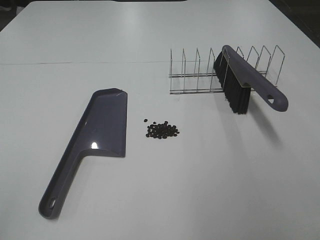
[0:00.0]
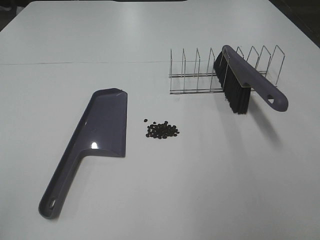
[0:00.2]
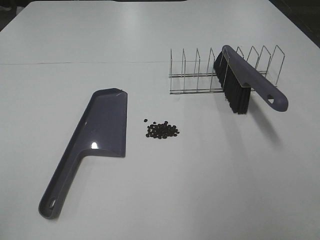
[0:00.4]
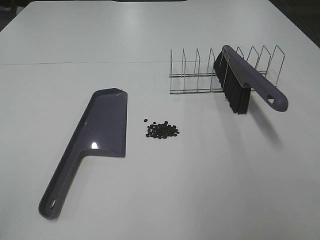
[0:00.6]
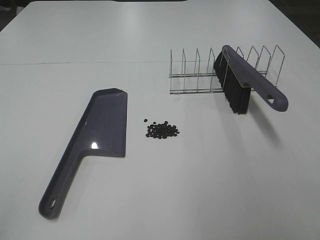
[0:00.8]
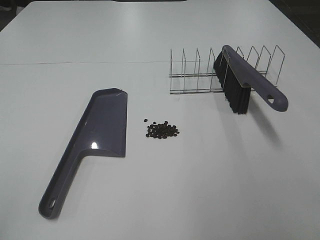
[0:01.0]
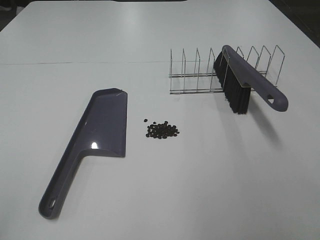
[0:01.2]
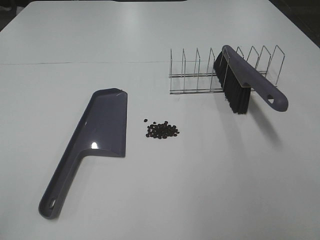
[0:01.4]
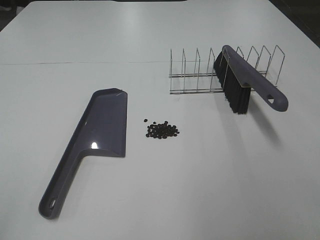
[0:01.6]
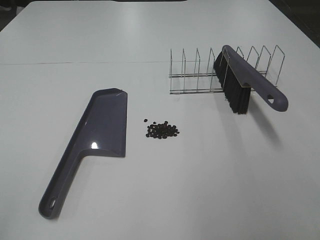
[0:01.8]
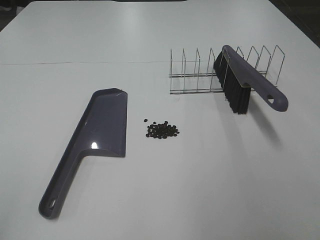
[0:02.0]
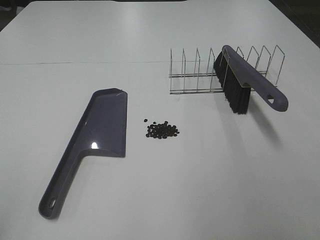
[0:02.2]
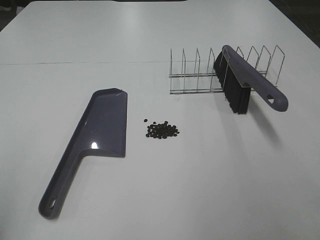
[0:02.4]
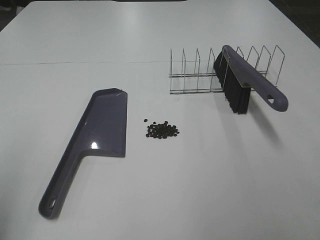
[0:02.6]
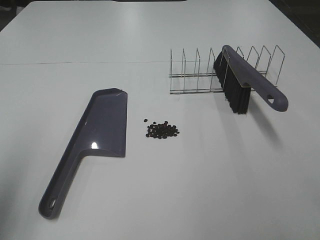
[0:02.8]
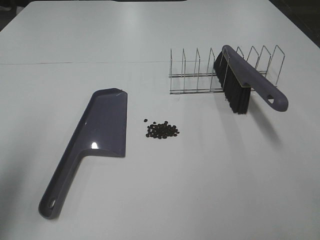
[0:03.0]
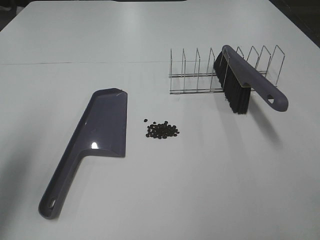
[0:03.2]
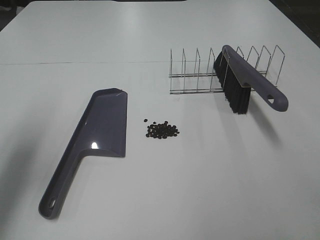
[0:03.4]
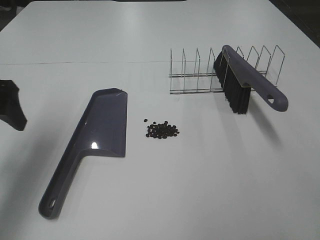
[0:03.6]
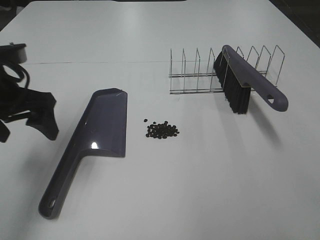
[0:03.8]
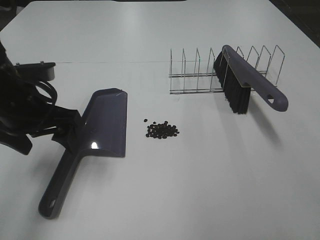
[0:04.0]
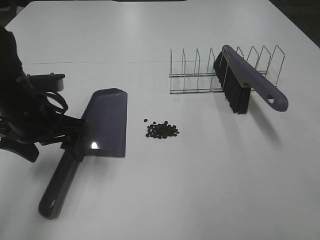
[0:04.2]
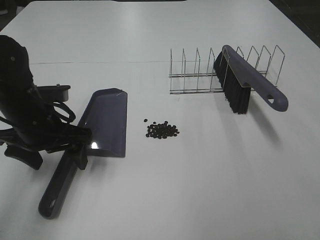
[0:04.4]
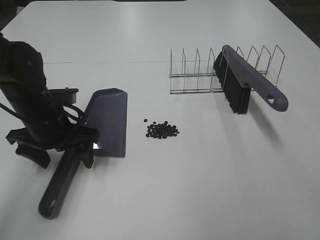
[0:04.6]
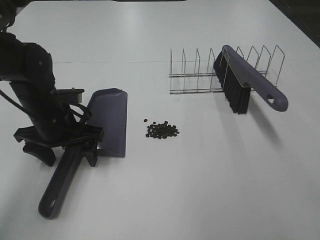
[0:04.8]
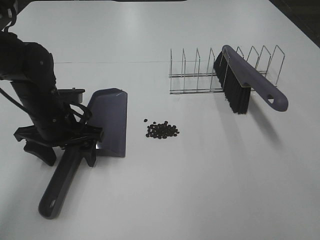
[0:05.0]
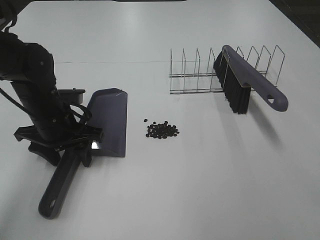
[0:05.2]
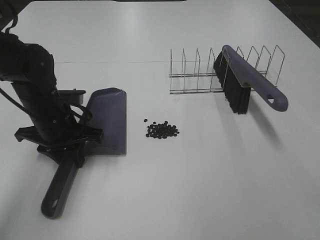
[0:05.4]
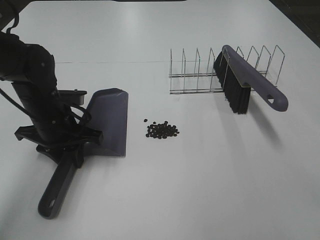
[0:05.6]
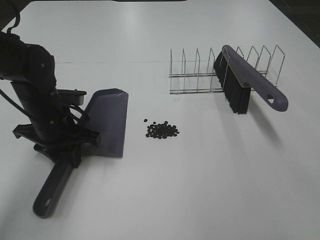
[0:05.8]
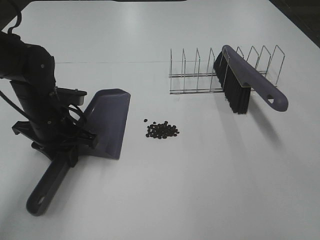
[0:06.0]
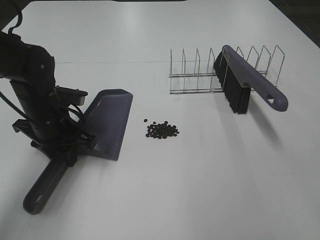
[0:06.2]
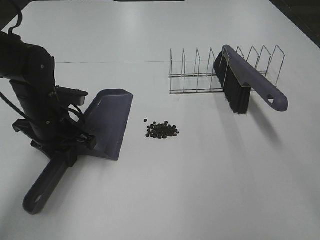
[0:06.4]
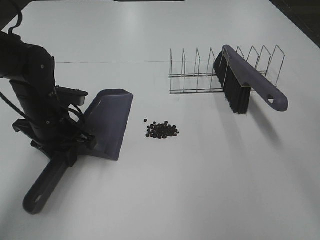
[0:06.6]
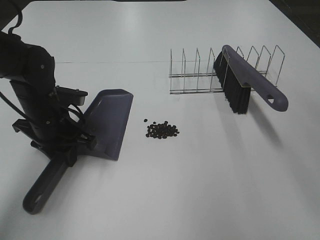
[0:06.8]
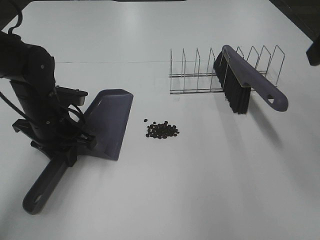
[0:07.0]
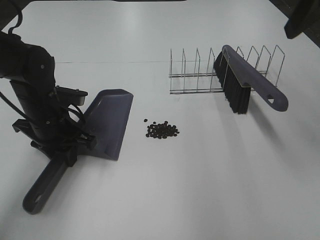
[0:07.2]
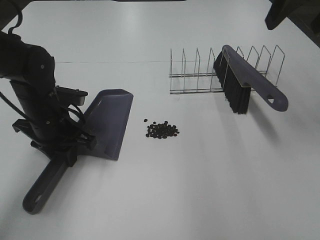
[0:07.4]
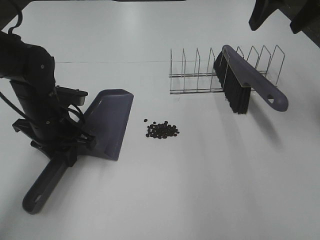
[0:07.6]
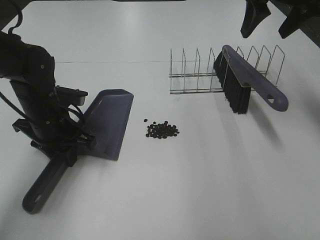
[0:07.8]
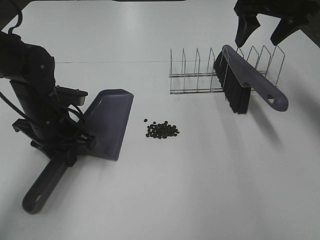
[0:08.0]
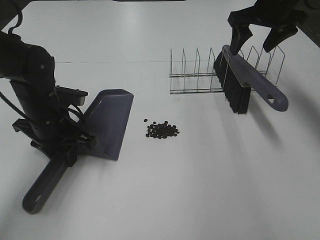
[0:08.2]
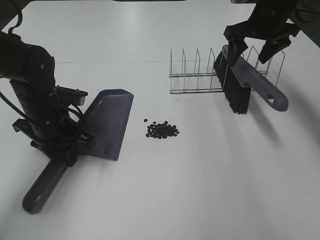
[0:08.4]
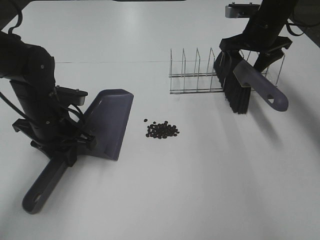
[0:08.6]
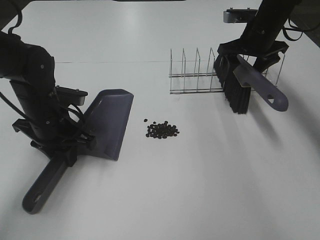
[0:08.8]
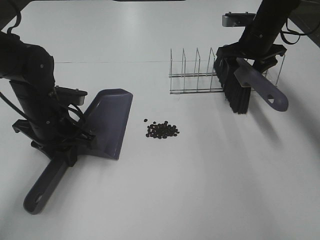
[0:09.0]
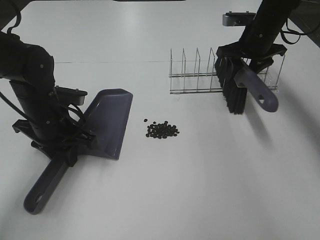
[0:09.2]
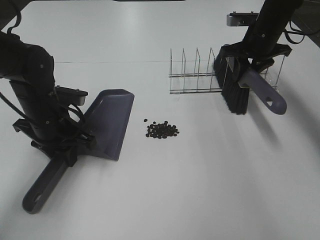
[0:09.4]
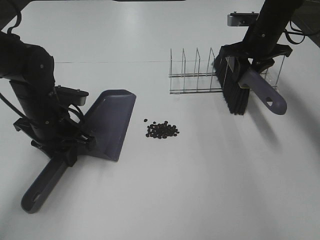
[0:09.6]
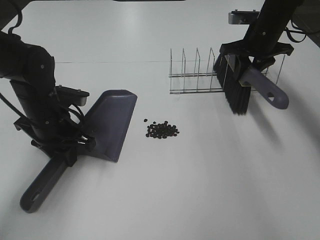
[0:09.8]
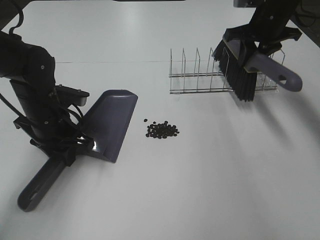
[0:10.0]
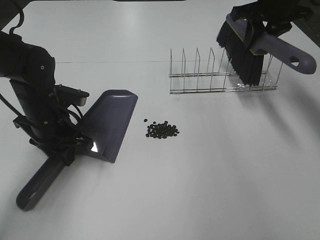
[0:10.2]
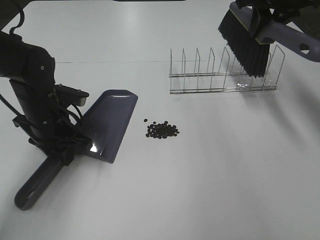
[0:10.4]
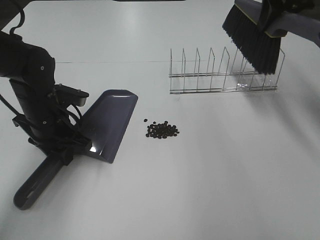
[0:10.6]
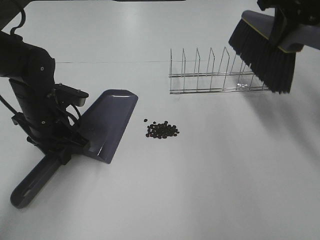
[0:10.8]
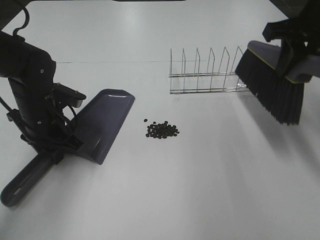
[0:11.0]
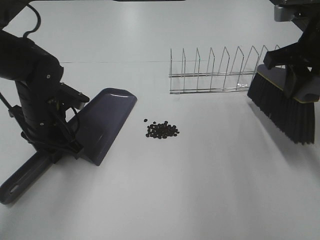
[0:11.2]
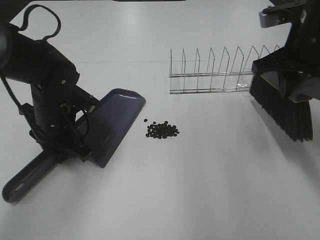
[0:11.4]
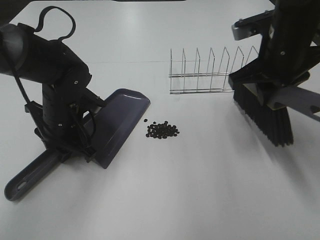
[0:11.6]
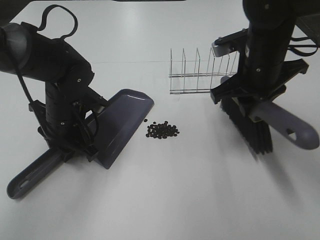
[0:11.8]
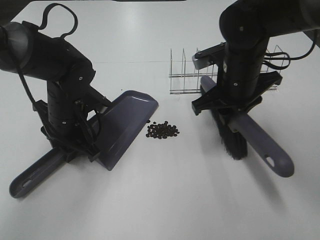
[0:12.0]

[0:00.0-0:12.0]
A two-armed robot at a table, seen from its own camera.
Task of the whole recording: Sweep Coffee Bean.
Step, 0:00.0 to 0:05.4: Left hand: grab the dustpan.
Step, 0:05.6 to 0:09.4: Right hand:grab the broom.
0:00.0 to 0:01.6: Both grippers stay put.
0:01.6 to 0:03.0: The left gripper moves forward, roughly 20 cm.
0:03.0 to 0:04.4: The left gripper travels downward, to the right and forward by some 20 cm.
0:04.4 to 0:06.0: The left gripper closes up.
0:06.0 to 0:07.6: The right gripper is displaced forward by approximately 40 cm.
0:07.6 to 0:09.0: The right gripper is displaced downward and forward by roughly 20 cm.
0:09.0 to 0:10.4: The right gripper is displaced upward by about 10 cm, and closes.
0:10.4 to 0:12.0: The right gripper goes some 20 cm downward, backward and to the left.

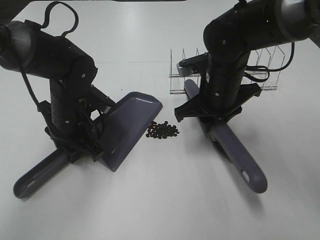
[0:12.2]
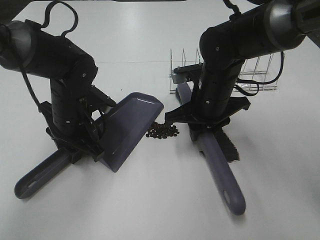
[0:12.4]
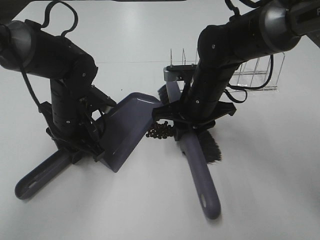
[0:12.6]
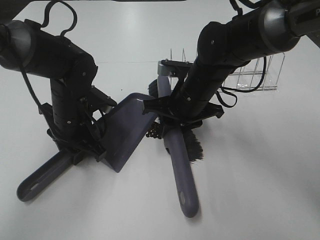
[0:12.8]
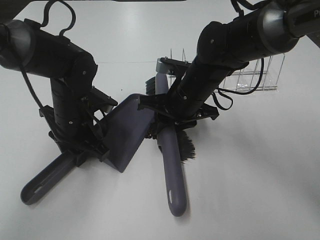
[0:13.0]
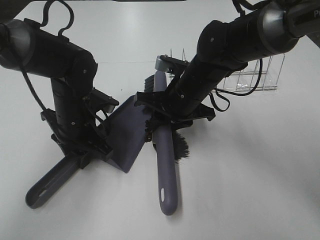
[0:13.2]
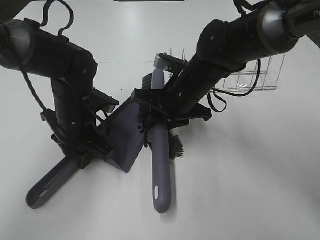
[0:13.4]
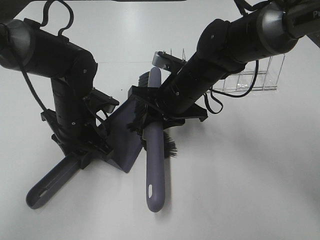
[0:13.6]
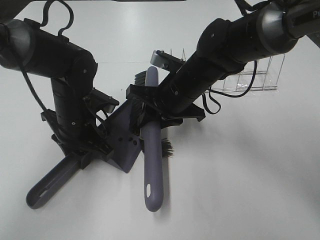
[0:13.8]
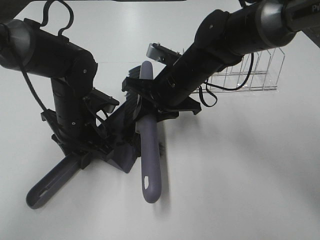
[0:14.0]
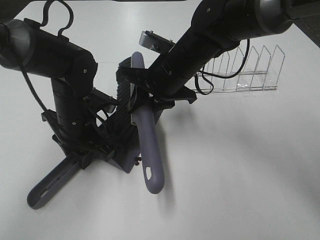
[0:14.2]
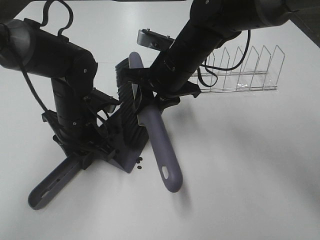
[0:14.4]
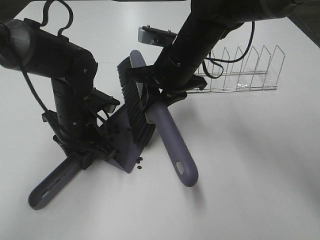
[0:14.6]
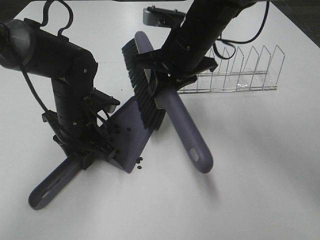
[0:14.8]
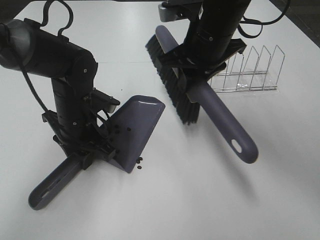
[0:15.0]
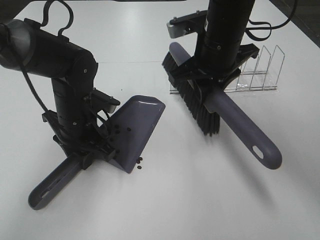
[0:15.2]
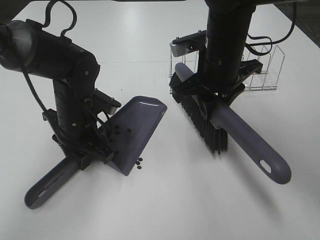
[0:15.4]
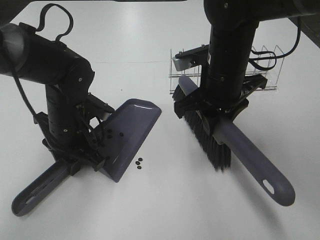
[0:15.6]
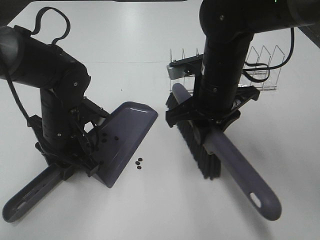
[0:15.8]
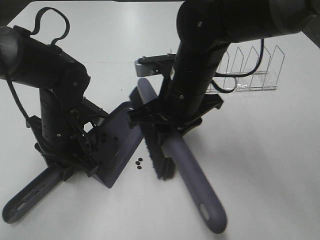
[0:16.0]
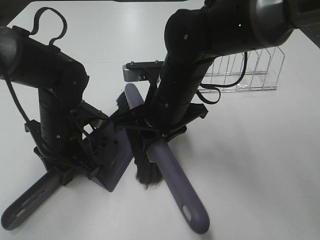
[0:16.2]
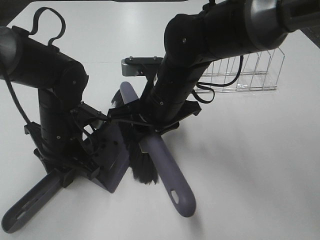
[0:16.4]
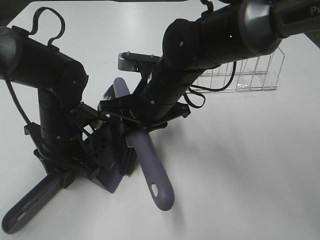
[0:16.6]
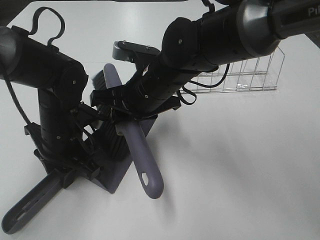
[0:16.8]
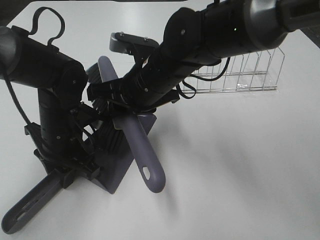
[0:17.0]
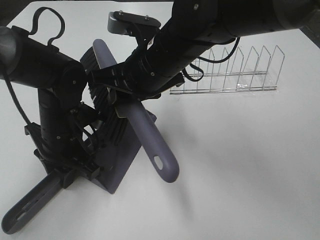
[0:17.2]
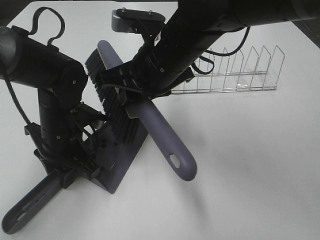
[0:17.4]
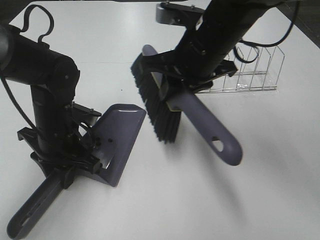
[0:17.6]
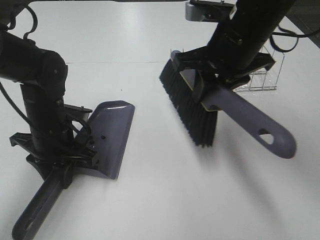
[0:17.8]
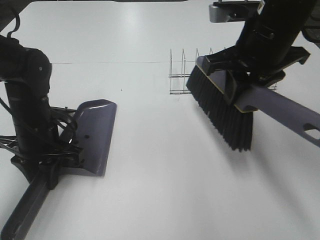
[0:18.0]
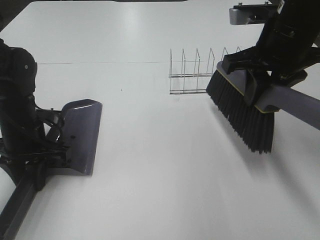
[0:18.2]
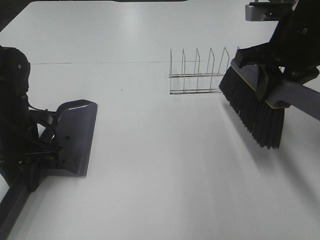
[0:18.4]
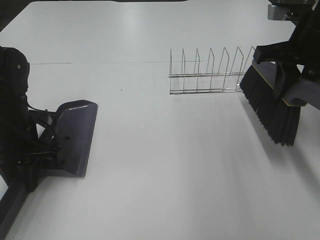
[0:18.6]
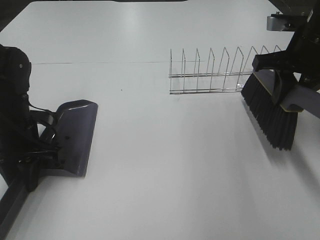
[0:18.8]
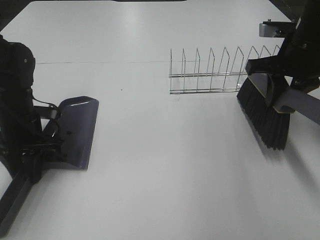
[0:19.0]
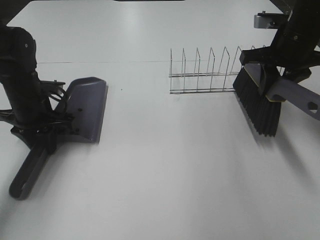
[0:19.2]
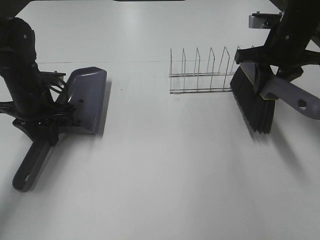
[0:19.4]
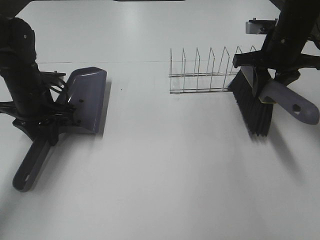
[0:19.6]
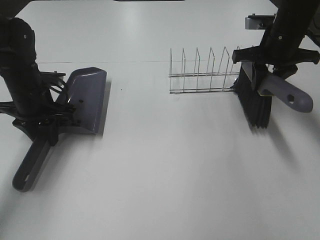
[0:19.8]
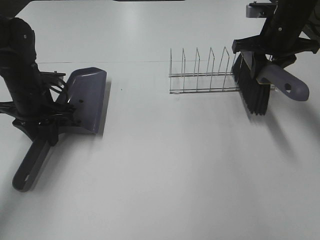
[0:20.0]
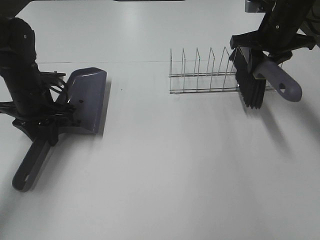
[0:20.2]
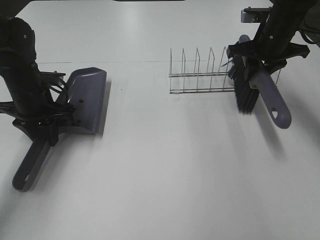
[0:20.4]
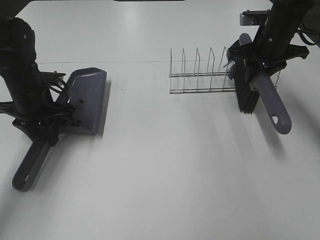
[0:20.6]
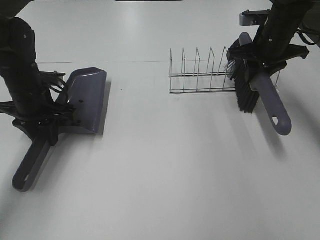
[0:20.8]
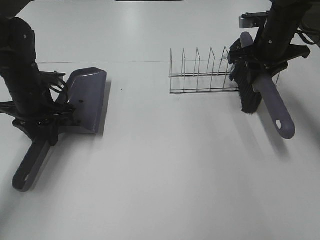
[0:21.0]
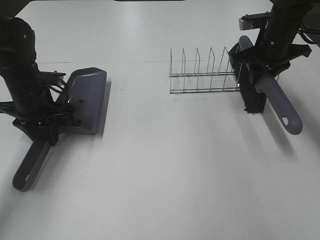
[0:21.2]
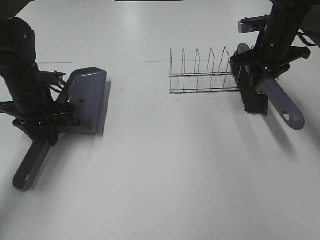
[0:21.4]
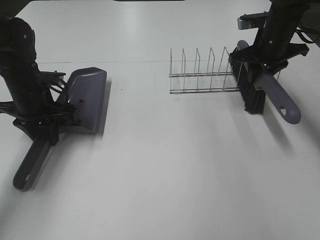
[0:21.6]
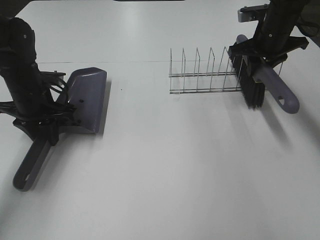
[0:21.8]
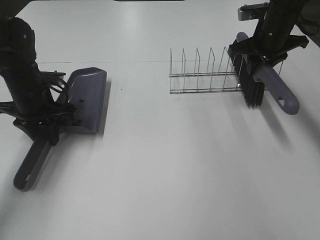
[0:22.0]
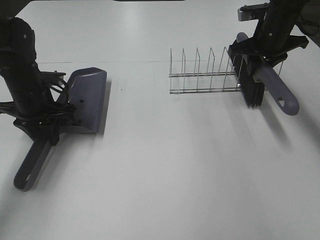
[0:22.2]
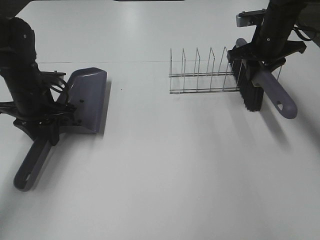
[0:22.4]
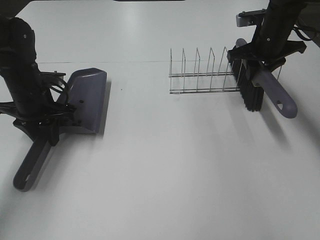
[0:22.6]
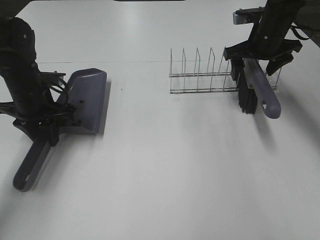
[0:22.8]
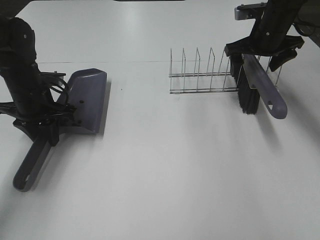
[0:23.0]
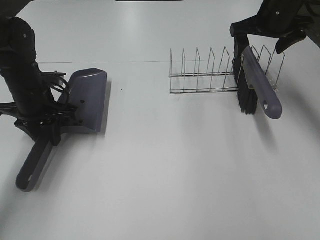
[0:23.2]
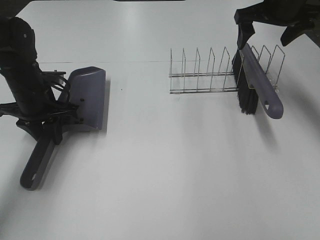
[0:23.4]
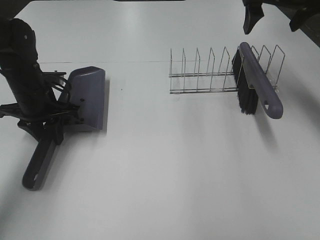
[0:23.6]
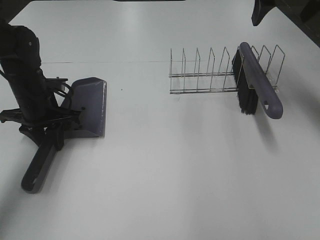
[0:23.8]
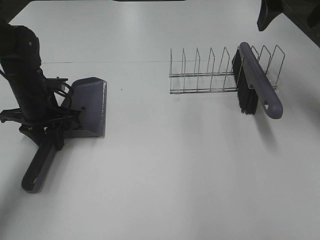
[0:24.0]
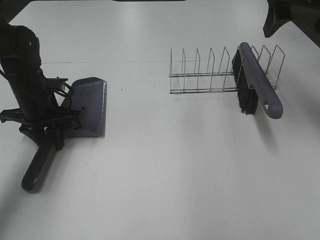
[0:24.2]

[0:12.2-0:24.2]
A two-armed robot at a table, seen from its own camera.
Task of the whole recording: Sweep Coffee Bean.
Step, 0:12.2 to 0:17.4: Right hand:sweep the coffee beans into the dustpan.
Step, 0:17.6 to 0:22.8: Right hand:place the broom on the rack.
0:12.2 to 0:13.8: The right gripper goes roughly 5 cm to the left.
0:13.8 to 0:15.2: The right gripper heads upward, covering about 10 cm.
0:15.2 to 0:16.6: The right gripper goes approximately 10 cm to the left and downward.
0:16.6 to 0:18.2: The left gripper is displaced to the left by roughly 10 cm; the right gripper moves to the right and upward, approximately 20 cm.
0:18.2 to 0:19.8: The right gripper heads forward, downward and to the right, covering about 15 cm, while the left gripper is displaced forward by roughly 5 cm.
0:19.8 to 0:22.6: The grippers move only a little.
0:22.6 to 0:24.2: The right gripper goes some 20 cm upward and backward, and opens up.
